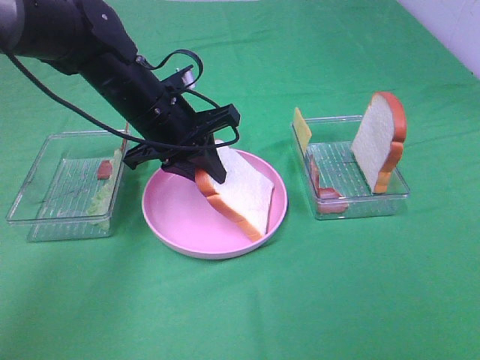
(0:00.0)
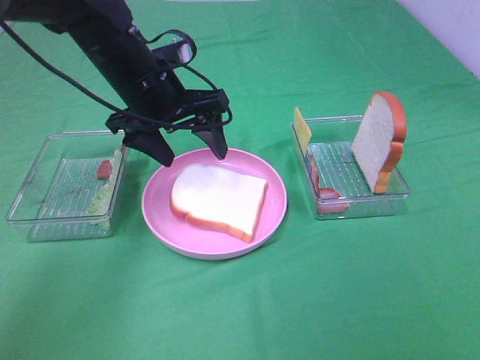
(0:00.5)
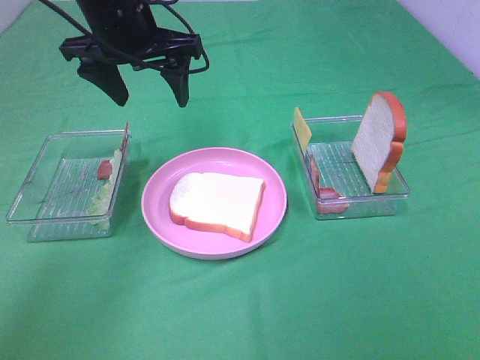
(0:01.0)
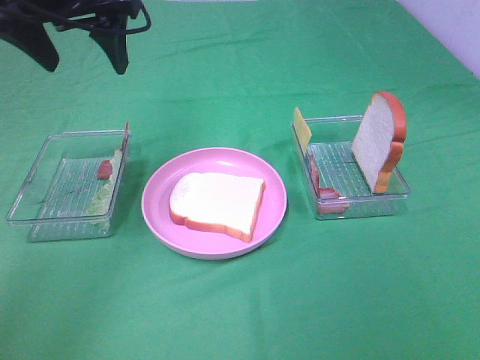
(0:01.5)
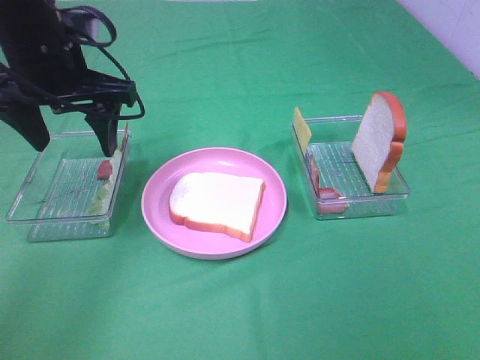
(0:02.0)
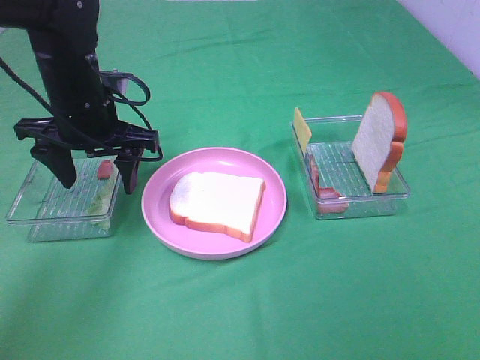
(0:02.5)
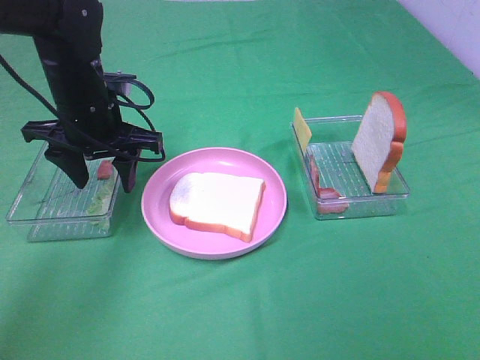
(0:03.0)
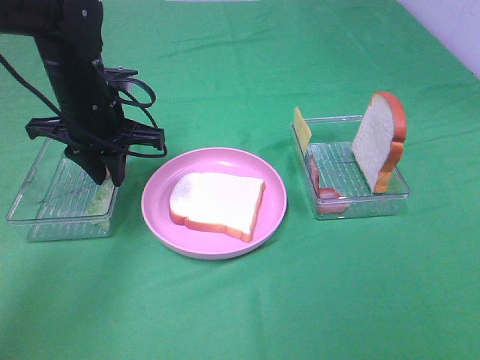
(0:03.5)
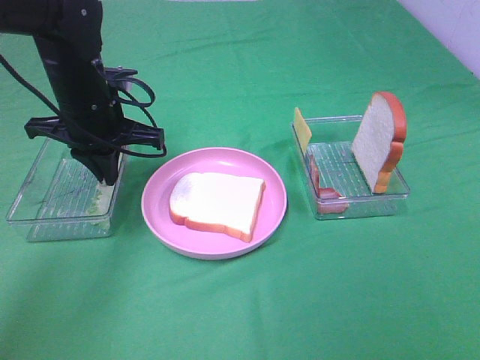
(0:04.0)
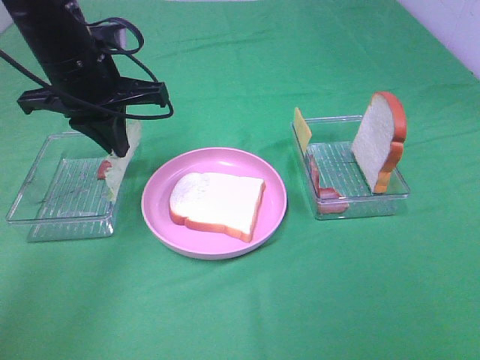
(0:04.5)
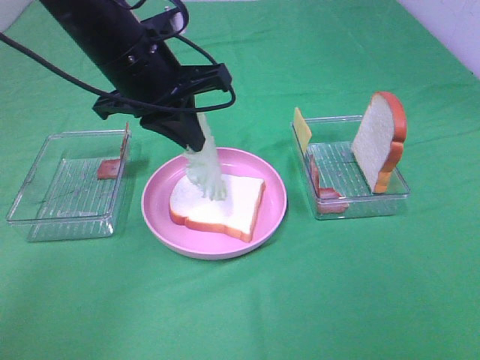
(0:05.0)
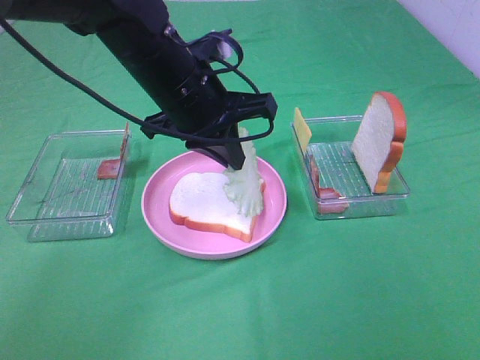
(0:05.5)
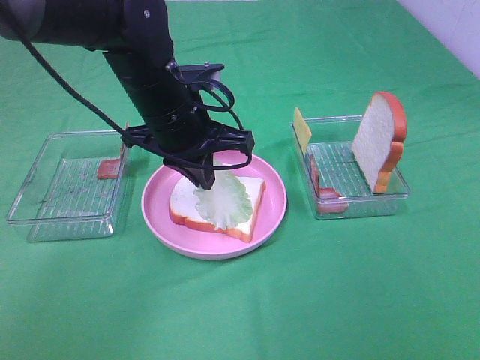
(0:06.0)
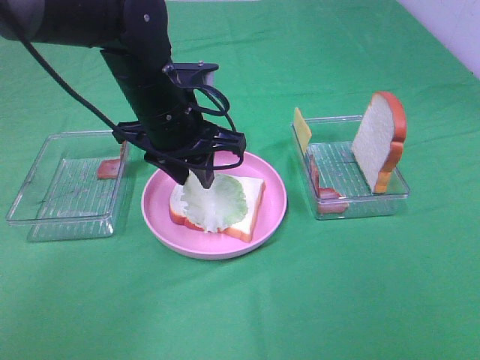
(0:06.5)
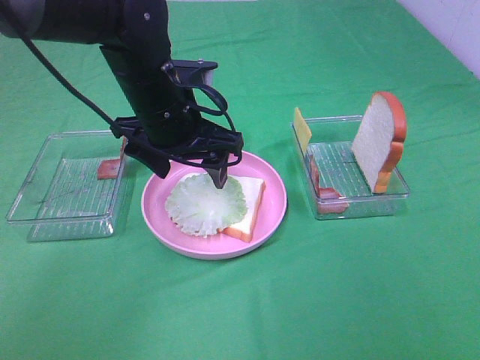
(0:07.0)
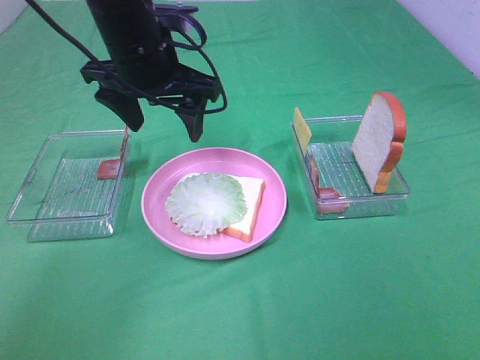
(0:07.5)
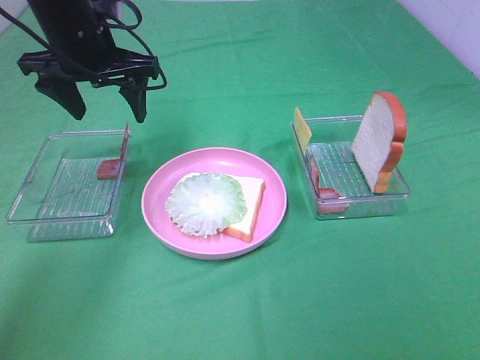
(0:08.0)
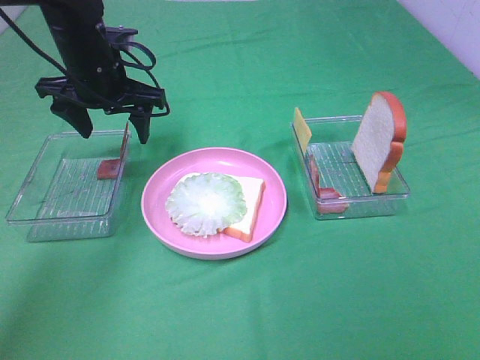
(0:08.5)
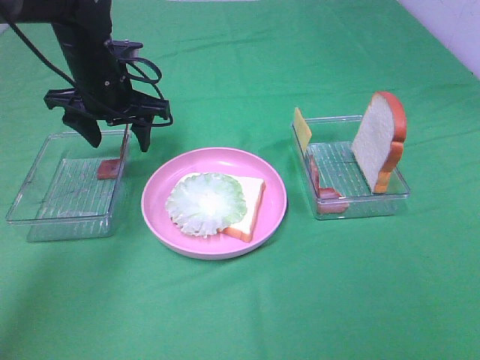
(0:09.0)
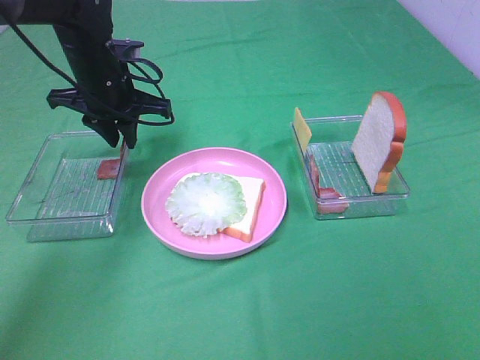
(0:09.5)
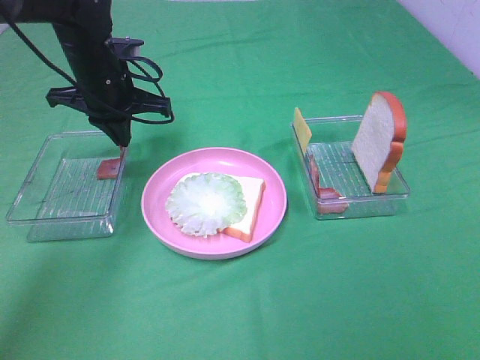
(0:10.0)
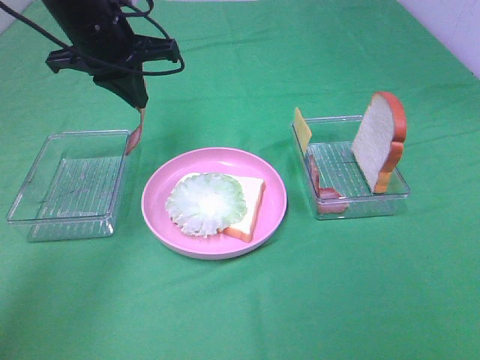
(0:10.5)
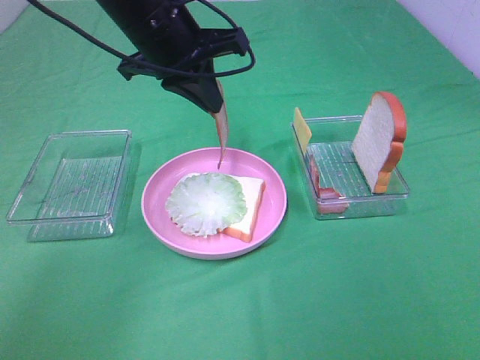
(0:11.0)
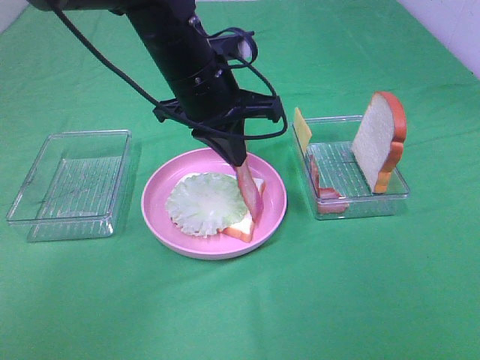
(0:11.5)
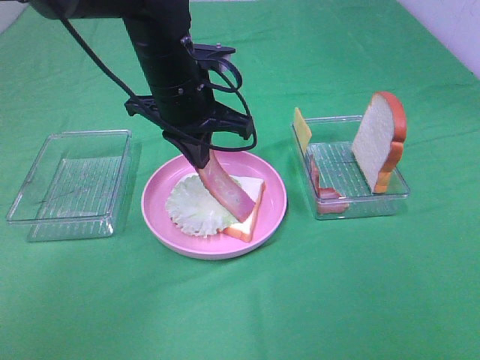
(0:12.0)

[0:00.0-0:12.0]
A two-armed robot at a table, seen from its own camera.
Task of the whole recording: Make sandwiches.
Step, 0:01.0 to 0:04.0: Left hand:grab the lettuce slice.
Step, 0:04.5 to 0:06.5: Left hand:place the lettuce slice on the bread slice.
Step, 0:07.0 to 0:09.5: Left hand:grab the bacon.
0:00.0 to 0:02.0: The left gripper shifts roughly 10 cm upward and to the left, and opens.
0:02.0 to 0:04.0: The left gripper is displaced downward by some 5 cm, and closes.
0:04.0 to 0:06.0: The left gripper heads to the right, covering approximately 10 cm.
0:06.0 to 0:08.0: The left gripper travels to the left, forward and upward by about 15 cm, and opens.
0:08.0 to 0:10.0: The left gripper heads downward, covering approximately 5 cm, and closes up.
0:10.0 to 0:12.0: The left gripper is displaced to the right and backward by about 10 cm.

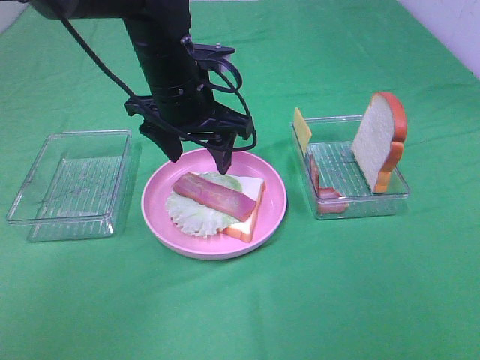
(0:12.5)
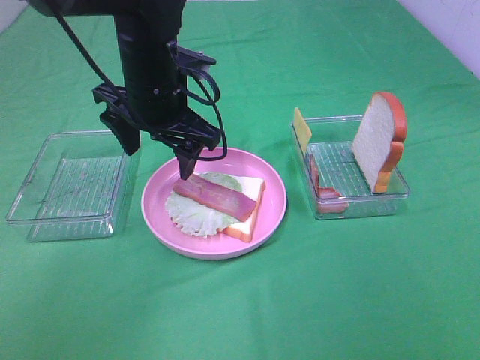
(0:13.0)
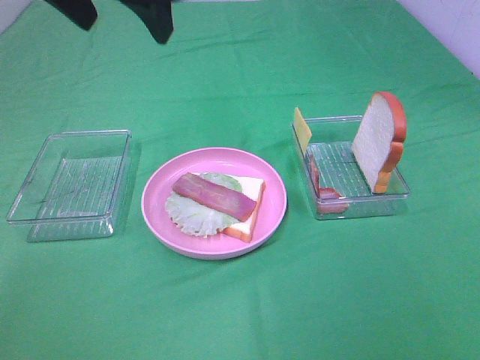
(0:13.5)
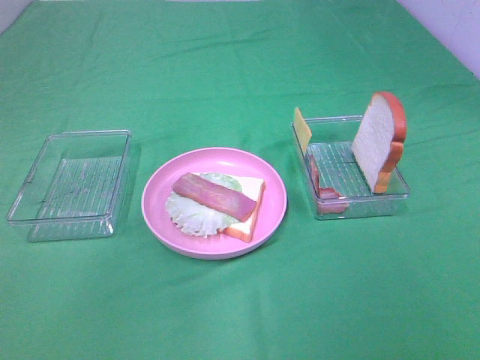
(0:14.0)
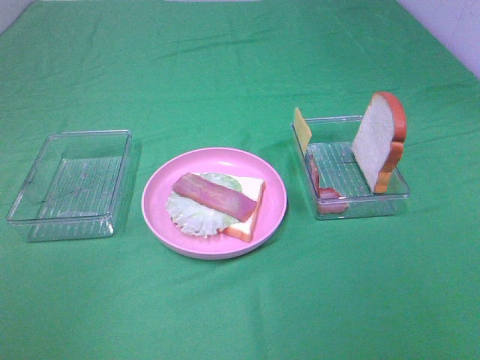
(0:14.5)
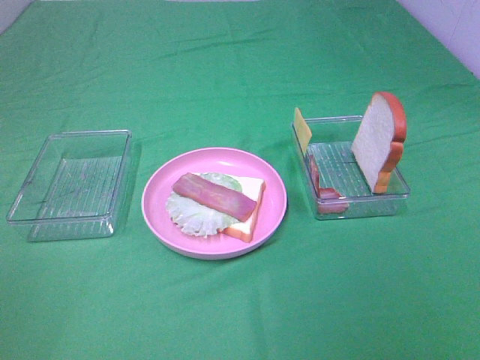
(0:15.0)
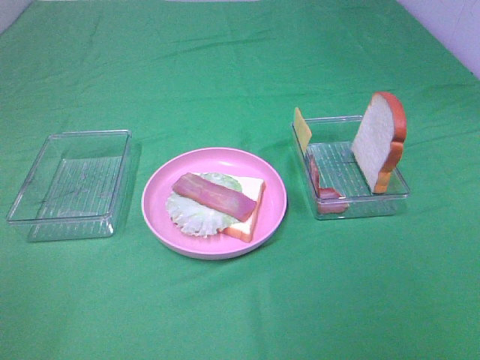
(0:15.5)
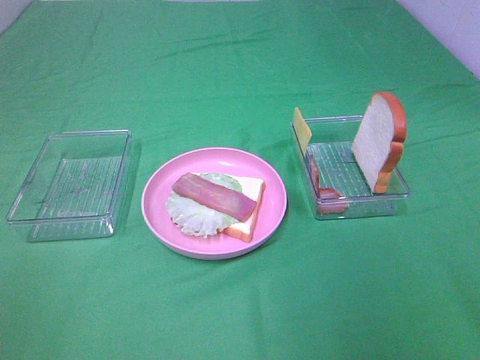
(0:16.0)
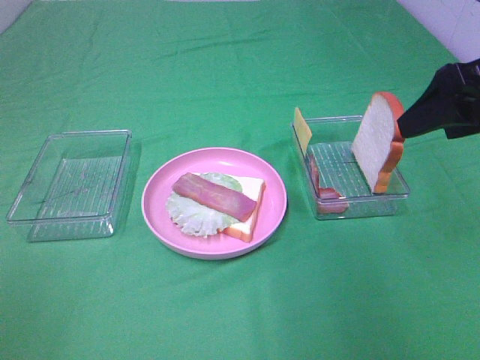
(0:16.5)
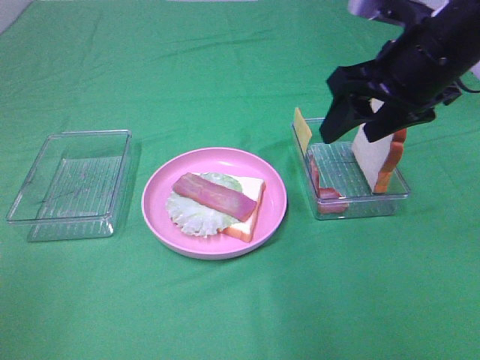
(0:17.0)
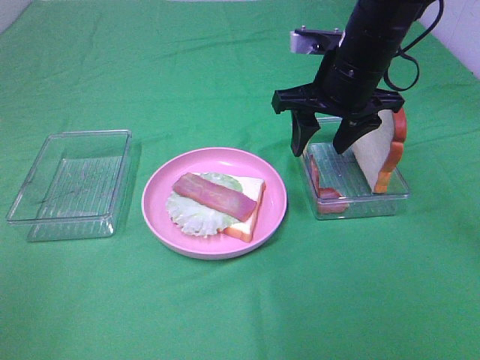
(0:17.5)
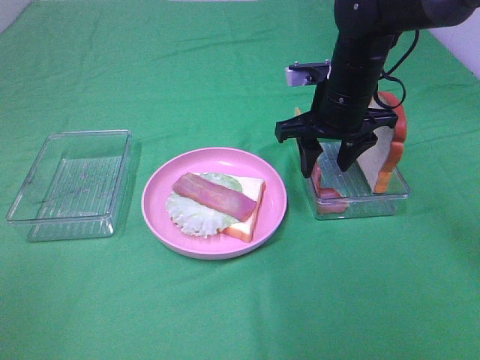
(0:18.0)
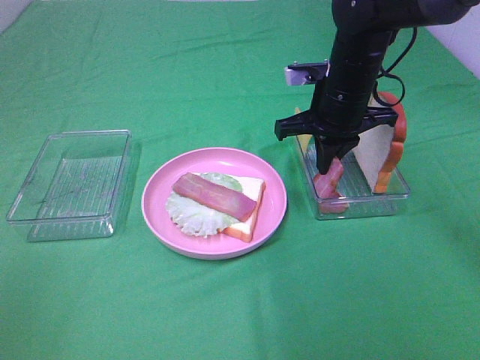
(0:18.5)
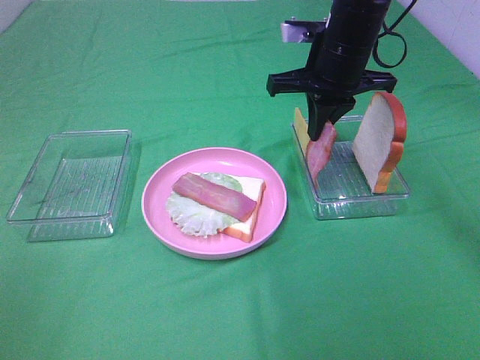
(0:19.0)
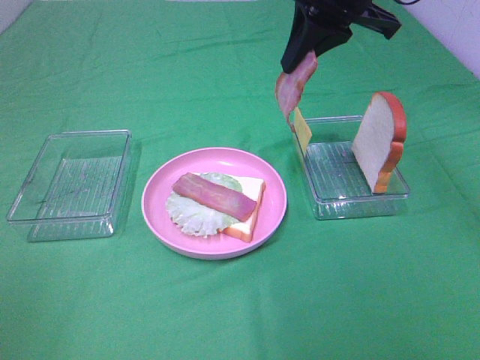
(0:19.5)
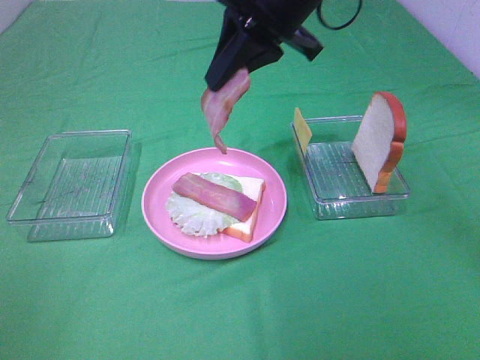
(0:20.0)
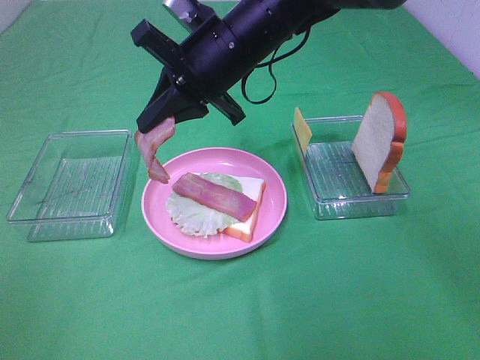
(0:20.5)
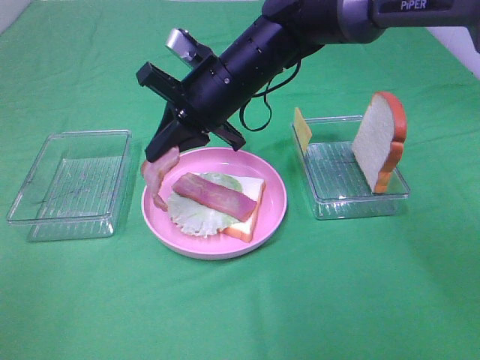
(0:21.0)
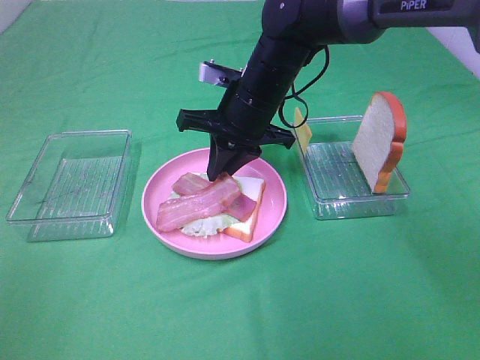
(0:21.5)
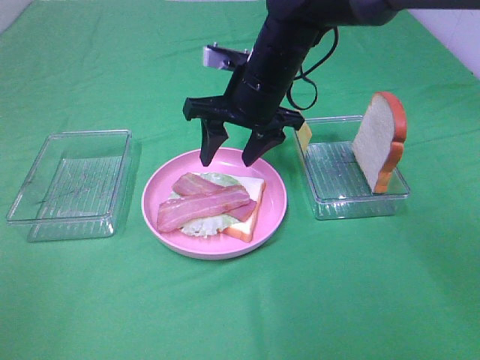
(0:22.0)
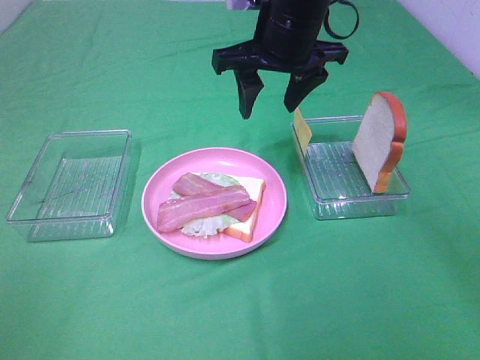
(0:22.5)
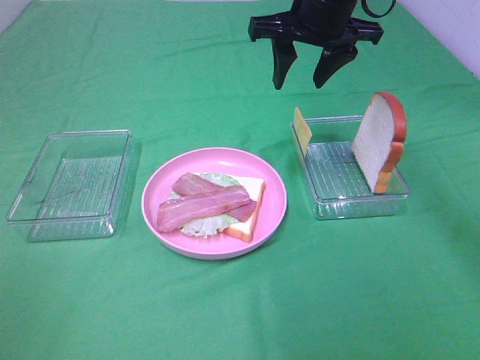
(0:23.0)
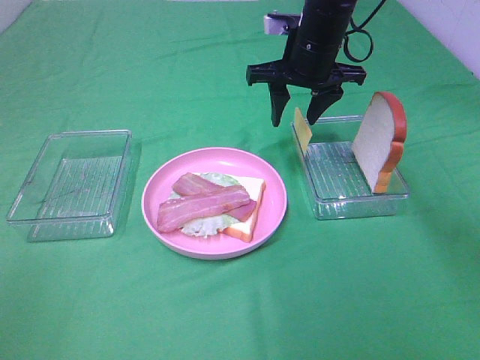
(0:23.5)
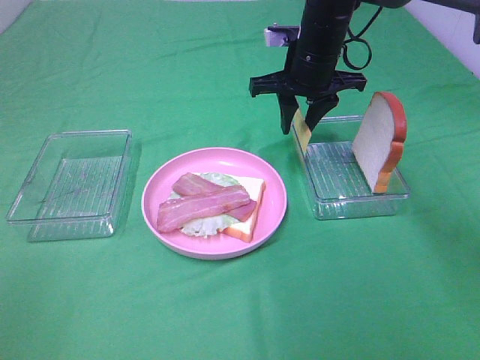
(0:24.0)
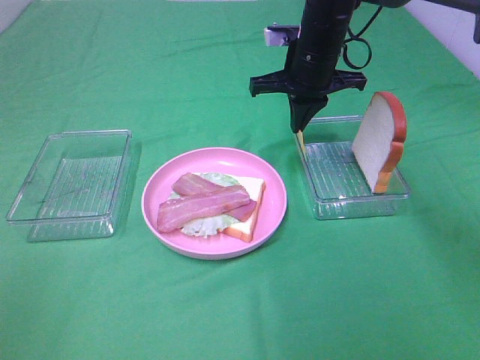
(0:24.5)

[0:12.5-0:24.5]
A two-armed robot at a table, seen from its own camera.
Task of the whole recording: Make sandwiches.
Step, 0:12.5 to 0:18.5: Right hand:grab the bacon.
Step, 0:19.0 to 0:21.5: Right hand:place bacon on bacon.
Step, 0:22.0 to 0:24.0: Right hand:grab the cheese slice.
0:12.5 to 0:14.5: The left gripper is displaced backward, to the left and upward by approximately 40 cm.
0:14.5 to 0:16.5: The right gripper is displaced forward by some 25 cm.
0:16.5 to 0:18.5: The right gripper is displaced to the left, forward and downward by roughly 20 cm, and closes up.
0:18.5 to 0:20.5: The right gripper heads to the left and upward, covering approximately 15 cm.
0:20.5 to 0:22.5: The right gripper heads to the right, covering about 5 cm, and opens up.
0:22.5 to 0:24.5: The right gripper moves downward and forward, roughly 10 cm, and closes up.

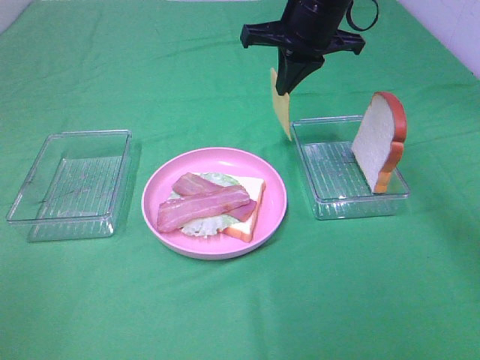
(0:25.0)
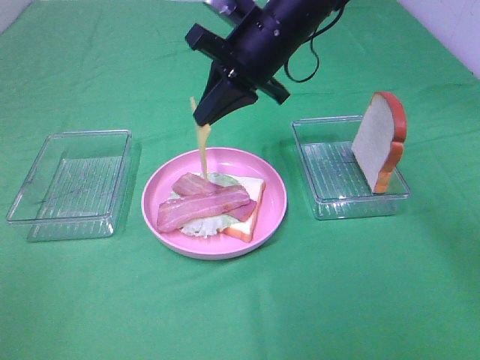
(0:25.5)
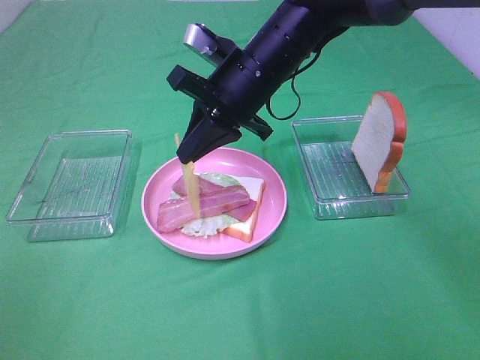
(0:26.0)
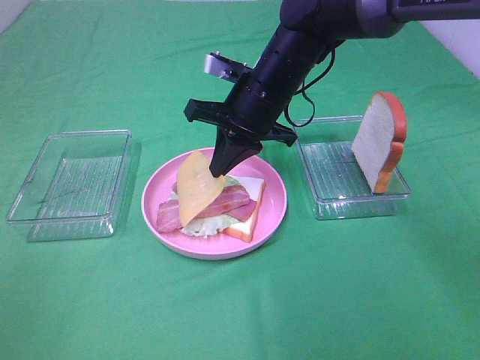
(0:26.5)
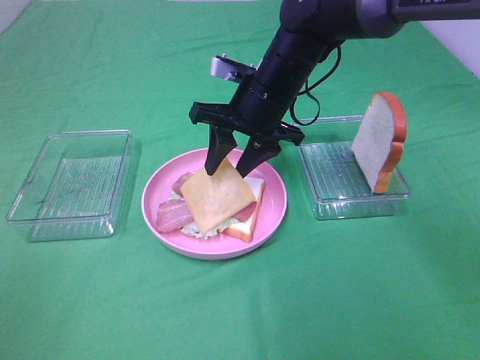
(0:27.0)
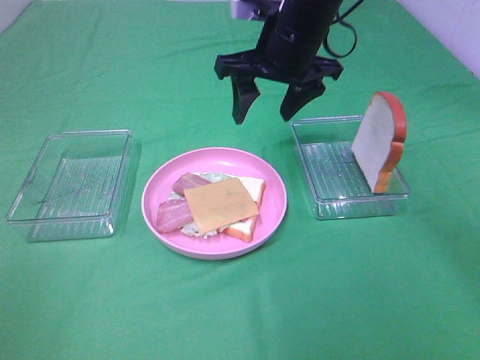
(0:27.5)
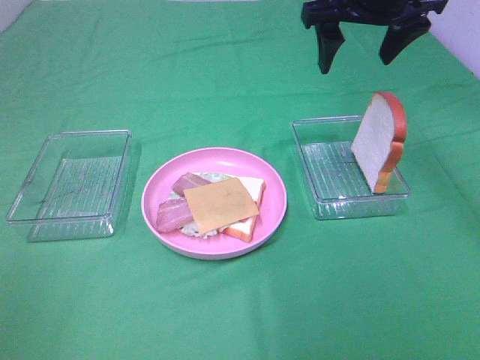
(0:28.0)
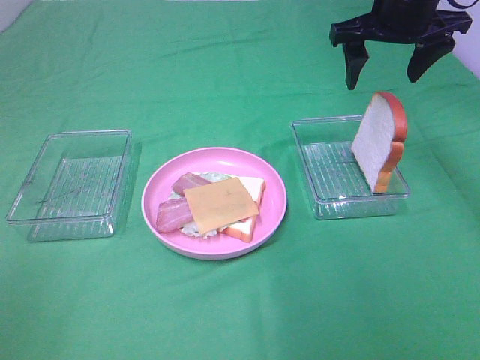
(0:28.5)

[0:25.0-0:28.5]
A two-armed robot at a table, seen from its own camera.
Task of the whole recording: Make sandwiches.
Step, 0:25.0 to 0:27.0: Right hand:place the cheese slice on top of the bacon.
0:25.0 to 0:27.0: The right gripper is displaced downward by approximately 10 cm, and opens up.
0:27.0 to 0:28.5: The right gripper is displaced to the right and upward by about 20 cm.
